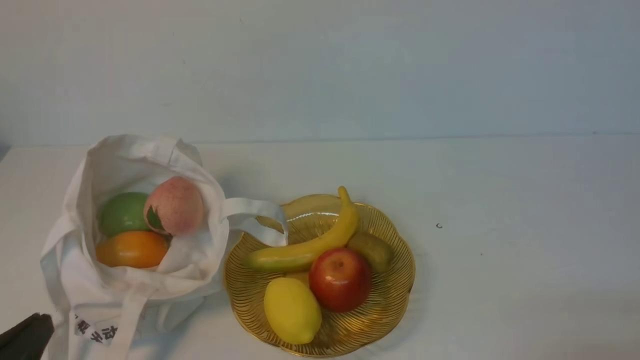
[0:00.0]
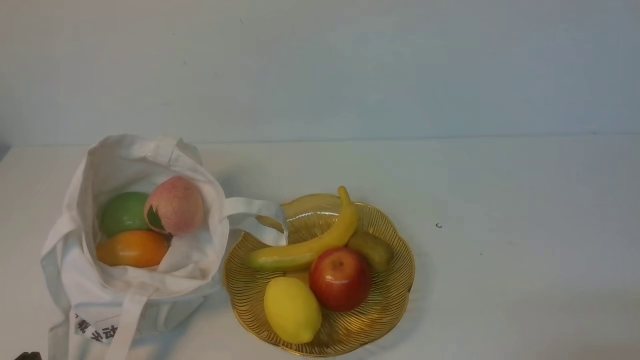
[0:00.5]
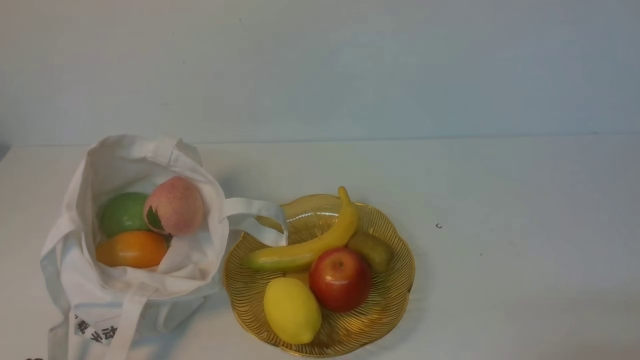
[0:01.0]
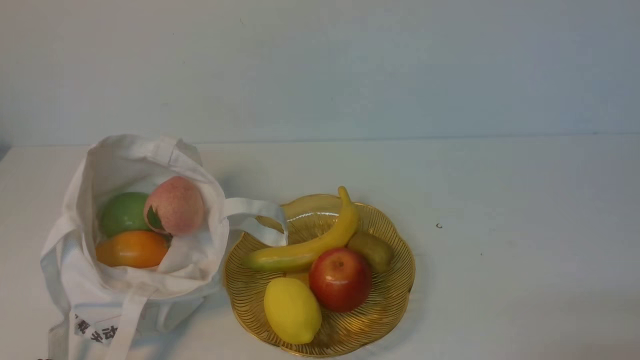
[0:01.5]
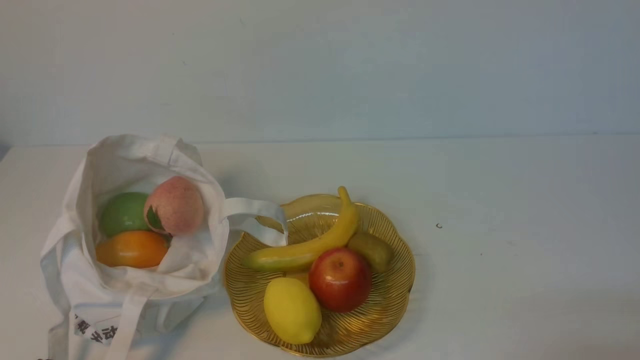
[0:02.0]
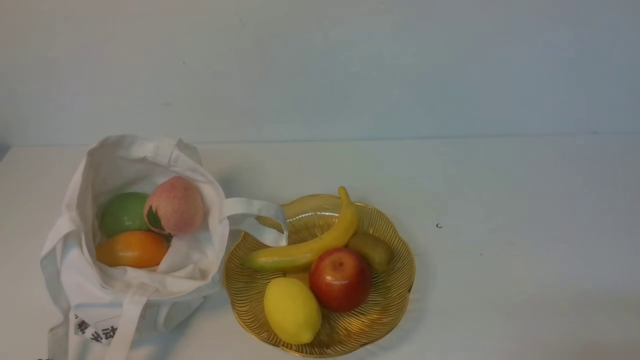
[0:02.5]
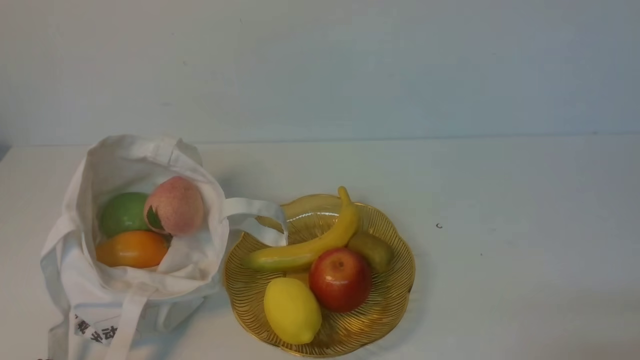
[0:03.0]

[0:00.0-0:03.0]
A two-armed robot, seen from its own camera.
0:01.5 to 0:03.0: Both grippers stay put.

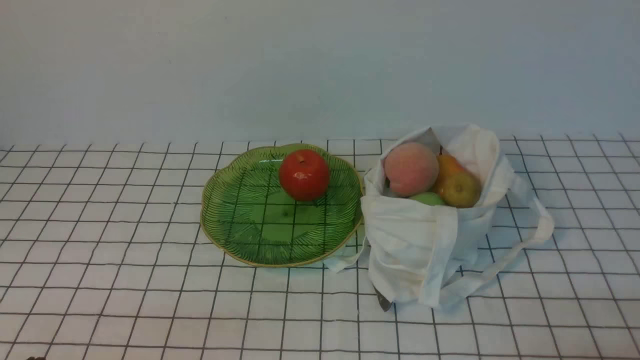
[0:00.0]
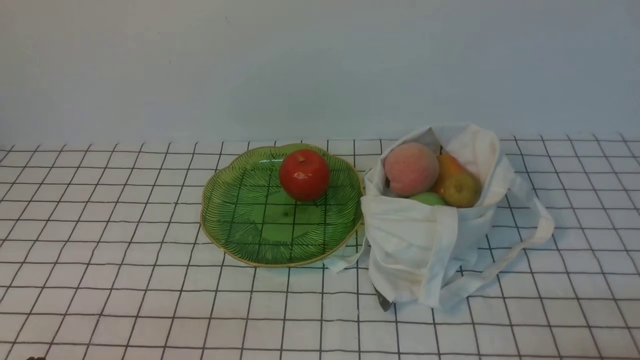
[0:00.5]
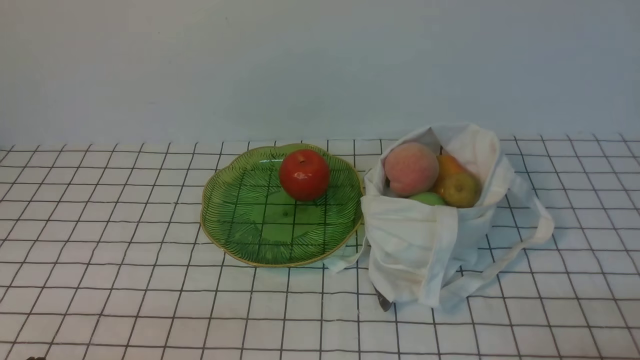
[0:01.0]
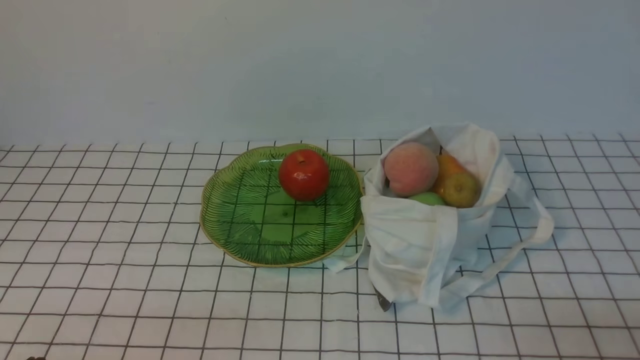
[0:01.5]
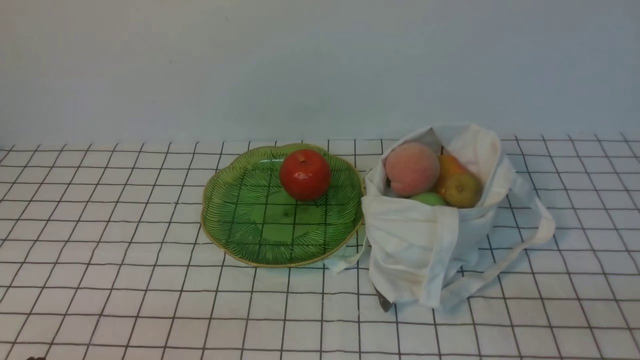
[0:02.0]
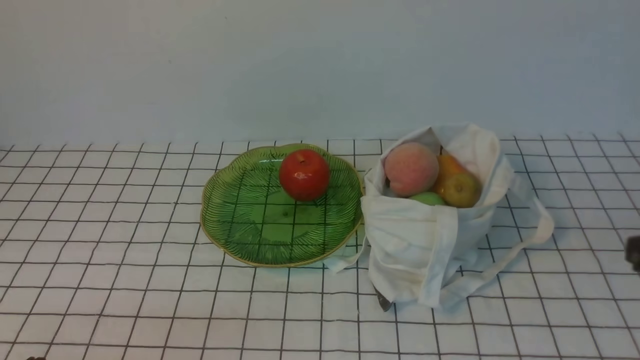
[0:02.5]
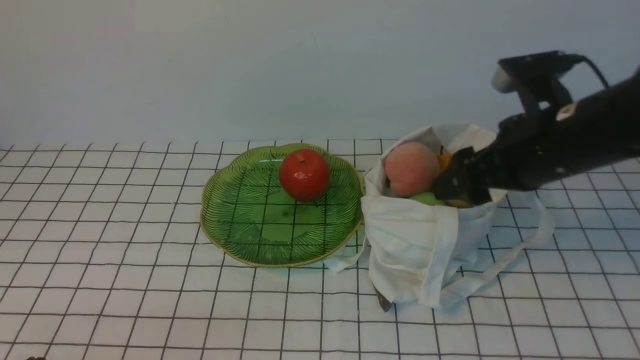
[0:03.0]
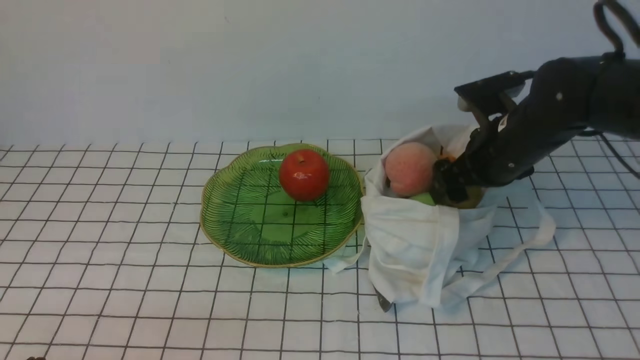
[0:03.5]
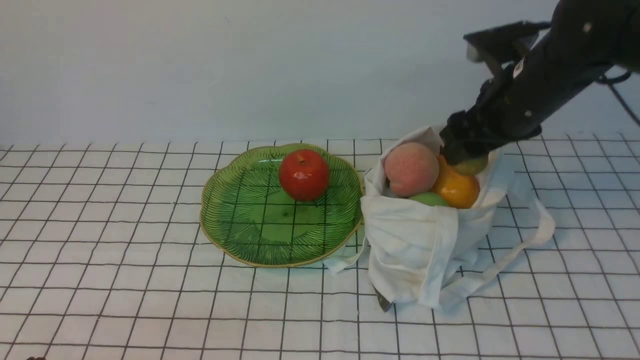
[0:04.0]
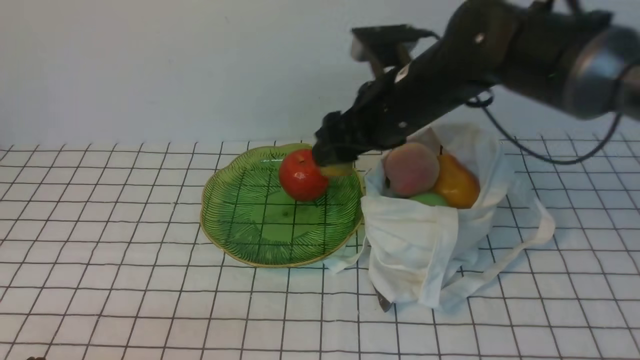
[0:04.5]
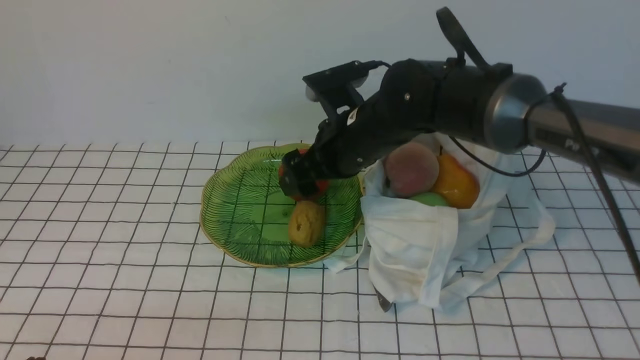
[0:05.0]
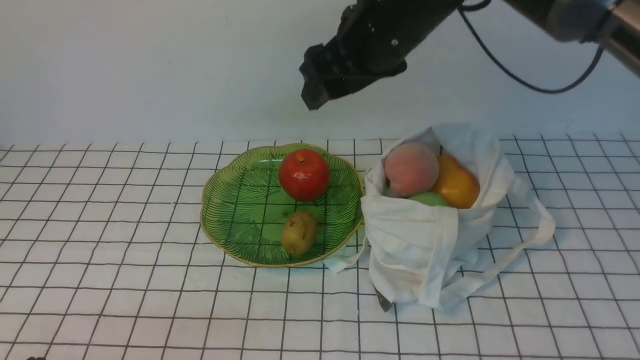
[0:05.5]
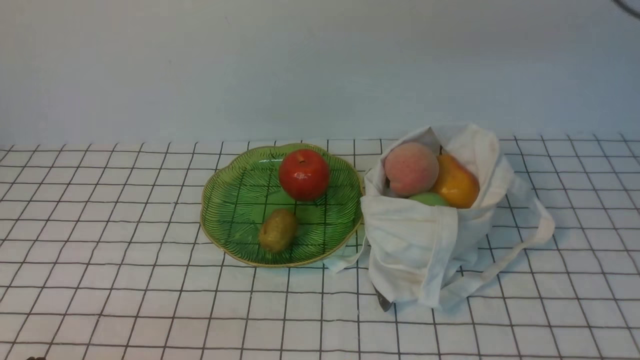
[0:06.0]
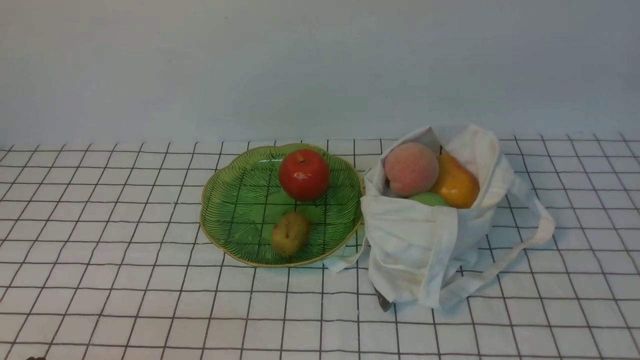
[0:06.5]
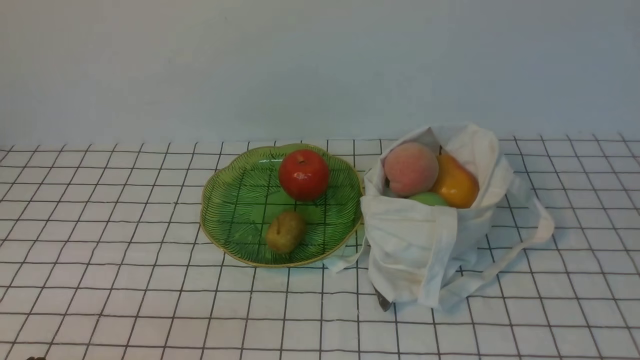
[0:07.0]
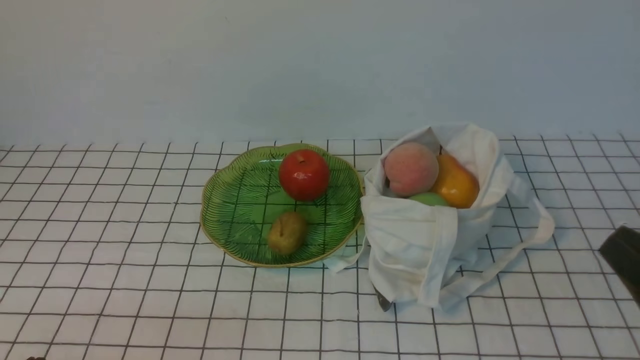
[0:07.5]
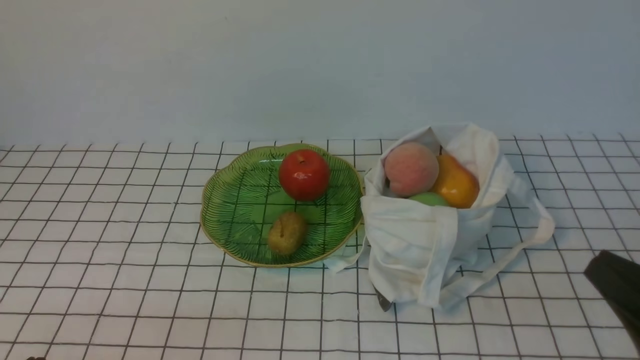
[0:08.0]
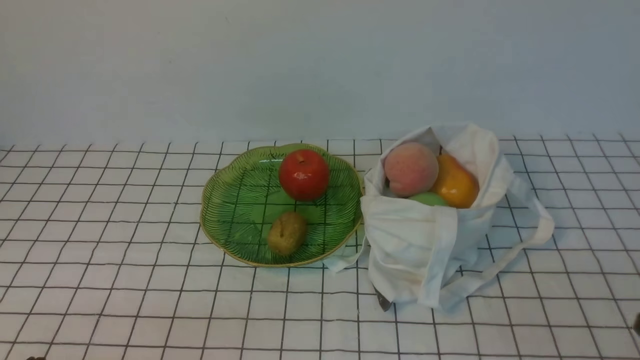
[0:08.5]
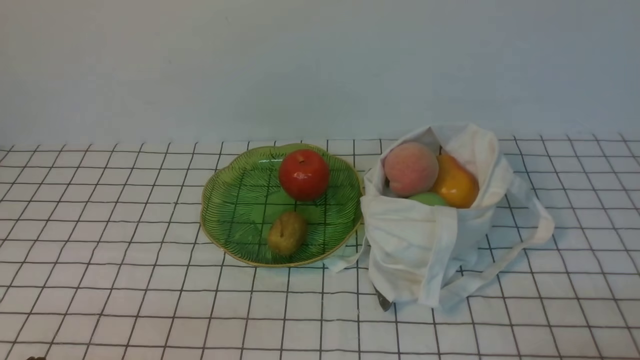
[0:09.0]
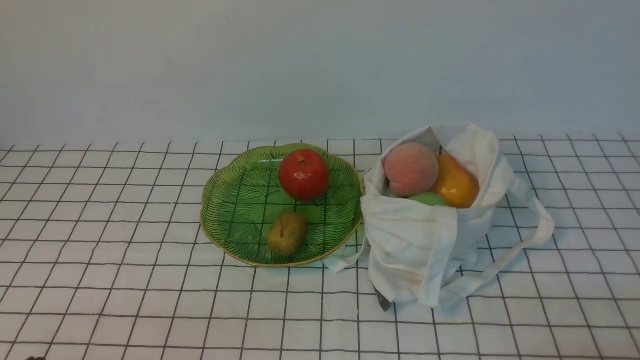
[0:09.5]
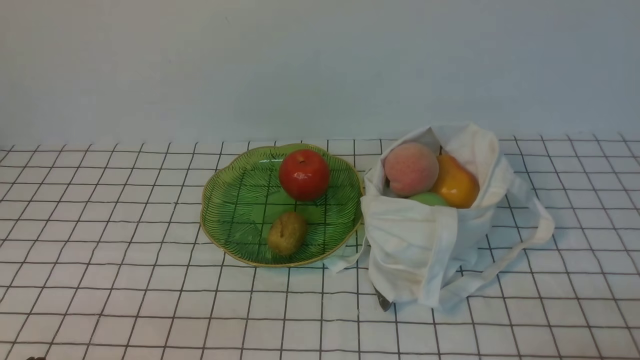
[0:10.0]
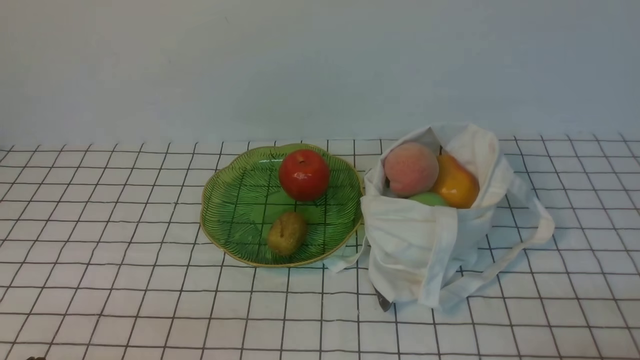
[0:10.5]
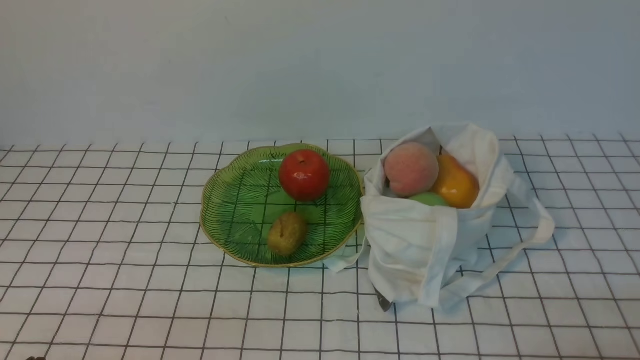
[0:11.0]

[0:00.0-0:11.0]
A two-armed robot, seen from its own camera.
Step, 0:00.0 to 0:04.0: use the right arm to grab a kiwi from the bag.
Step, 0:04.5 to 0:05.0: use the right arm to put the kiwi into the empty plate on the left.
0:02.0 to 0:03.5: The right gripper is displaced forward by approximately 30 cm, and opens.
0:03.5 to 0:05.5: The right gripper moves to the left and upward, about 15 cm.
0:05.5 to 0:07.5: The right gripper shifts roughly 35 cm backward and to the right, and closes.
0:07.5 to 0:09.0: The right gripper moves downward, some 10 cm.
0:09.0 to 0:11.0: Both grippers stay about where they are.
